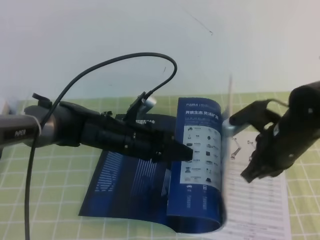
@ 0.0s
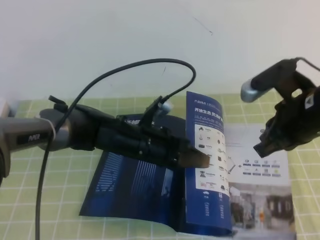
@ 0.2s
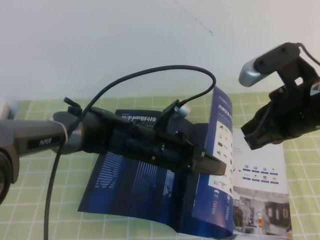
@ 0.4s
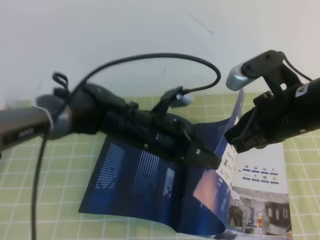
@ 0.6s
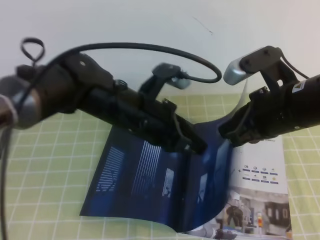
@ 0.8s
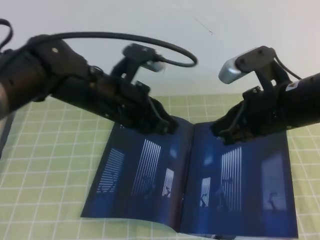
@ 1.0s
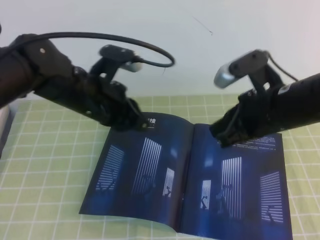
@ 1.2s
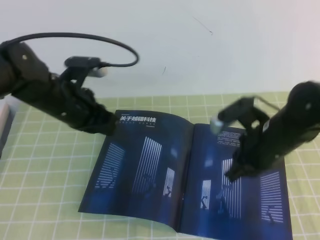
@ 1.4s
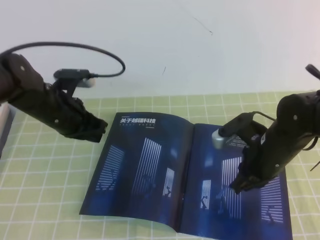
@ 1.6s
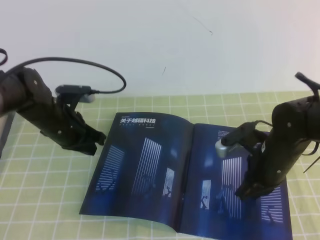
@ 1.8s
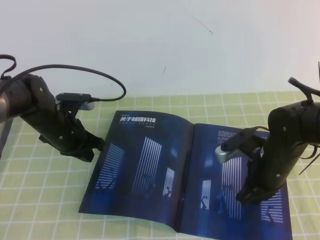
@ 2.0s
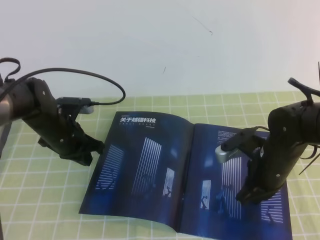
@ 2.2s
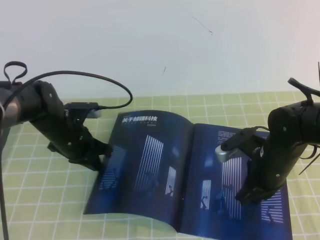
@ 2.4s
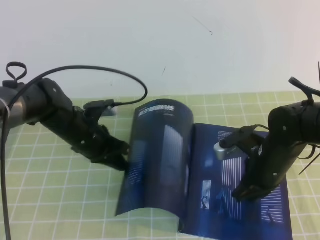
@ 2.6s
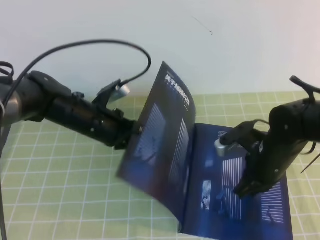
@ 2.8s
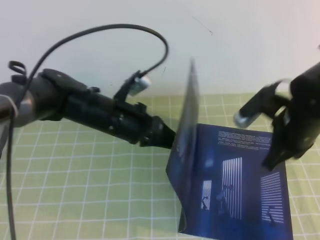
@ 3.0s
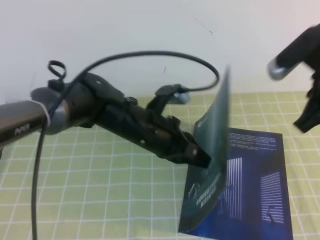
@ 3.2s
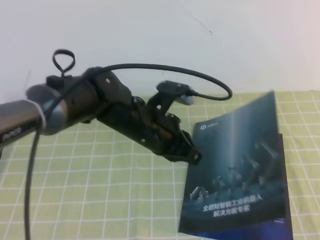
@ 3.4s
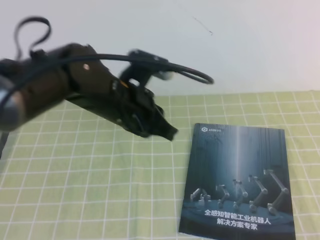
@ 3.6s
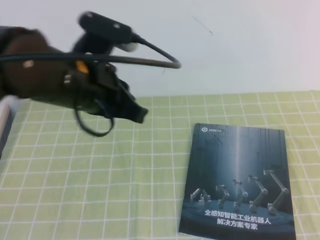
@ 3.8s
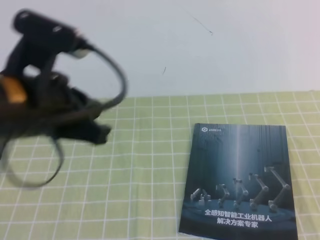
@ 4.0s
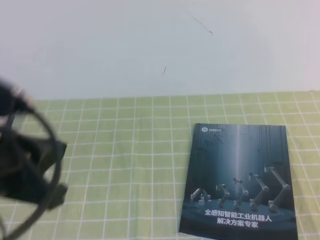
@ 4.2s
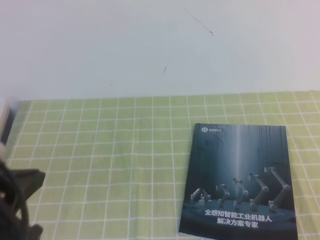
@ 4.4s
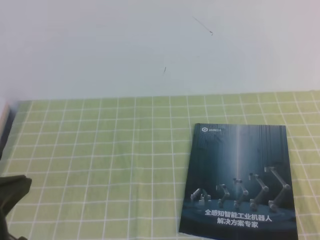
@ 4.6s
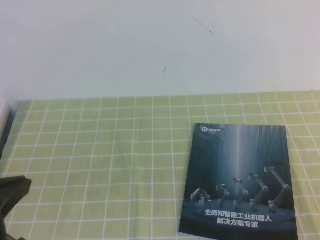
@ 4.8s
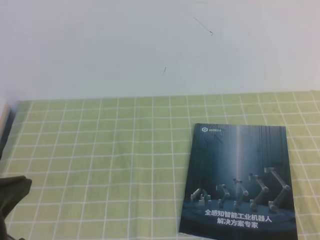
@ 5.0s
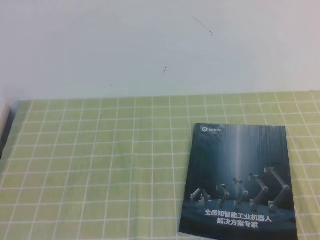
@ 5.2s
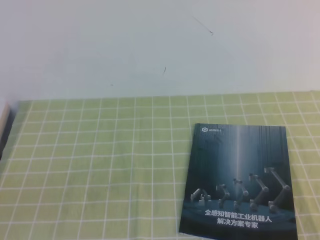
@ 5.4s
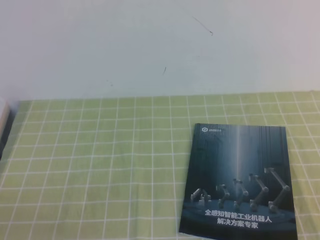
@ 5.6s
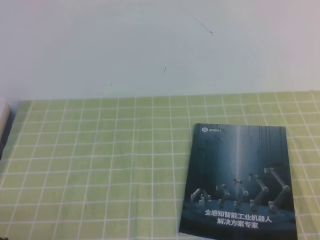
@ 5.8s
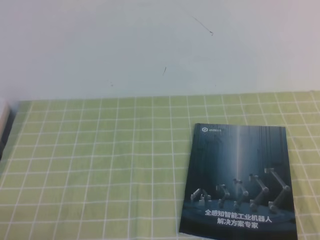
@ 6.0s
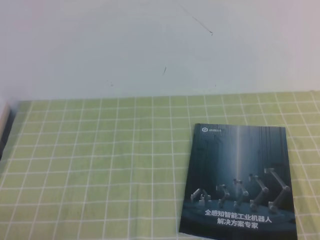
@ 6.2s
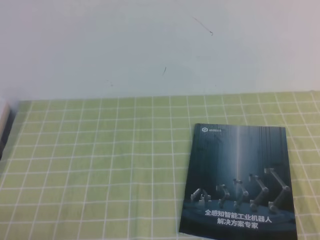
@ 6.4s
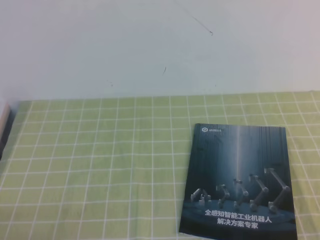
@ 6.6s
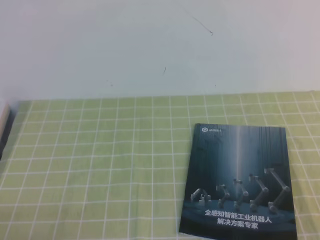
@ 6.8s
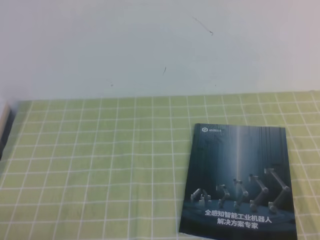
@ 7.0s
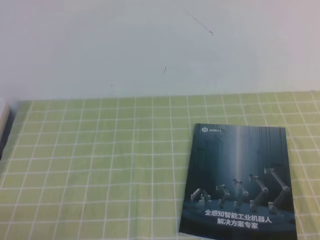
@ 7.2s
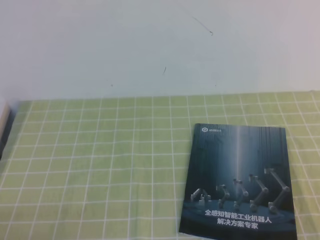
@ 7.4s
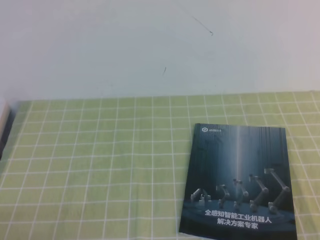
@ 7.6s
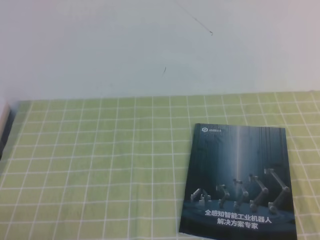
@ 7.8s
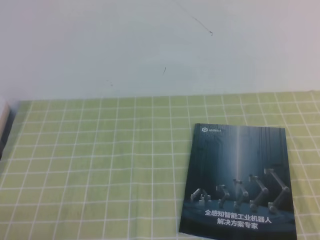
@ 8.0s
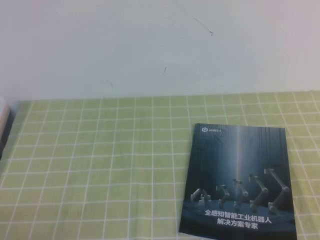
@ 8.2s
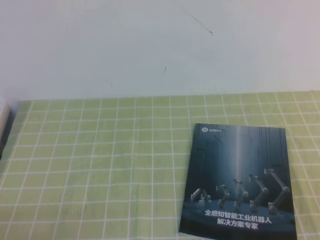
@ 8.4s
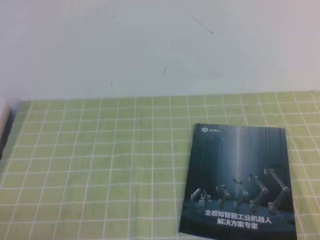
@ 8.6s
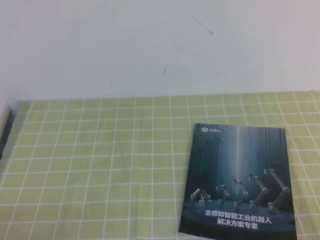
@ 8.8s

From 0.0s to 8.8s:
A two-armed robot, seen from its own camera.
Task of the whole recording: on the green tablecloth, hold the book with one hand and close it with the other.
Step, from 0.0s to 8.8s: Close the open book.
From 0.0s to 1.4s: The left gripper travels upward and to the left by approximately 15 cm; the right gripper travels upward and back again, some 10 cm each way.
From 1.4s to 3.0s: The right gripper moves approximately 10 cm downward and comes back, while the left gripper shifts some 5 cm to the right.
From 3.0s to 4.4s: The left gripper travels backward, upward and to the left by some 30 cm. The right gripper is displaced backward and to the right by about 30 cm.
From 4.4s to 5.8s: The left gripper heads downward, backward and to the left, covering some 15 cm.

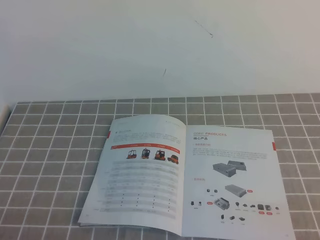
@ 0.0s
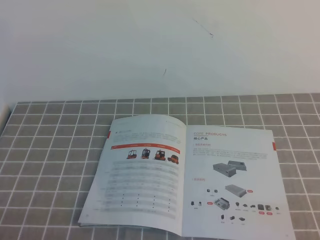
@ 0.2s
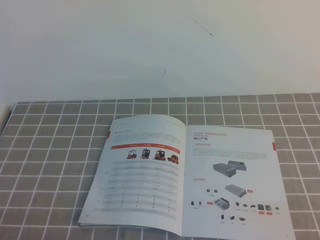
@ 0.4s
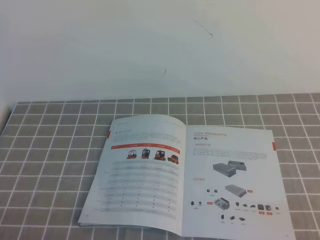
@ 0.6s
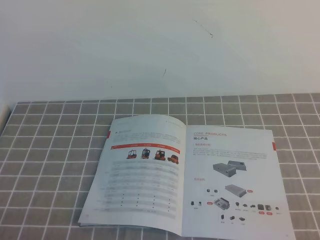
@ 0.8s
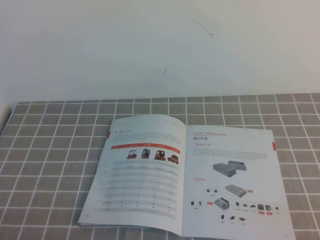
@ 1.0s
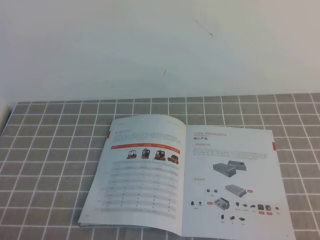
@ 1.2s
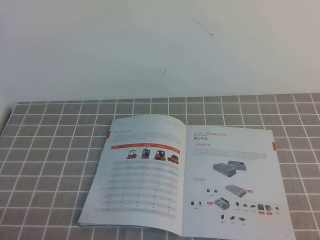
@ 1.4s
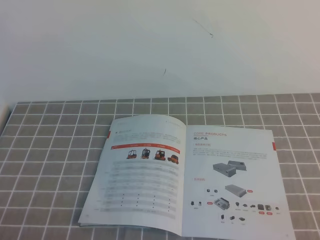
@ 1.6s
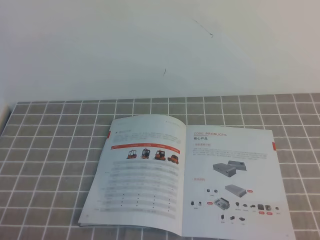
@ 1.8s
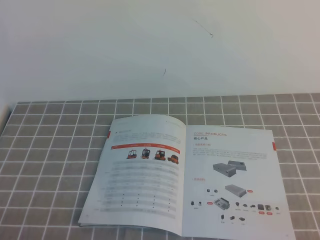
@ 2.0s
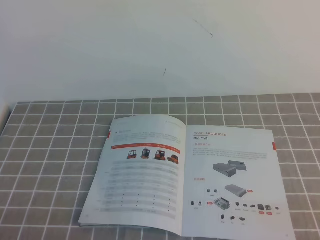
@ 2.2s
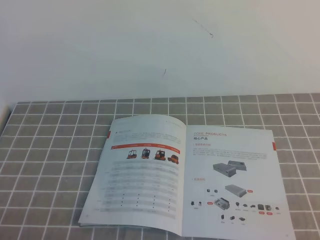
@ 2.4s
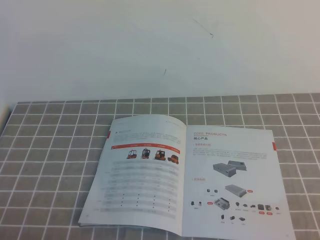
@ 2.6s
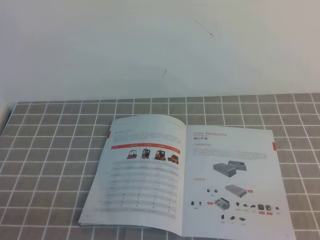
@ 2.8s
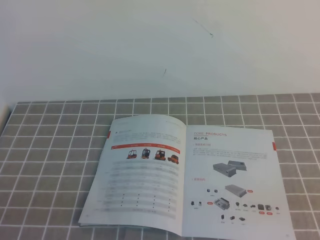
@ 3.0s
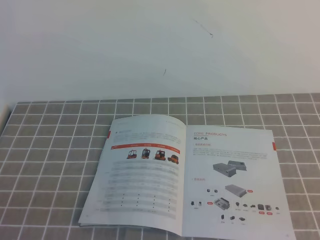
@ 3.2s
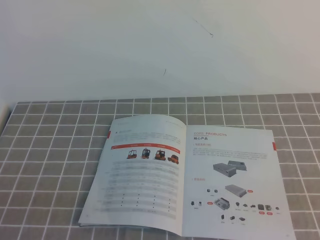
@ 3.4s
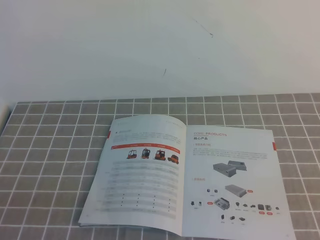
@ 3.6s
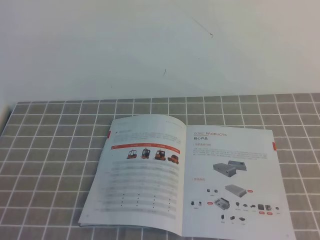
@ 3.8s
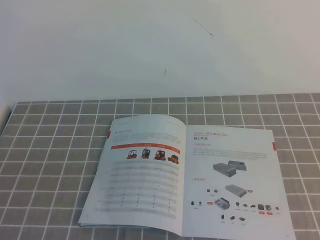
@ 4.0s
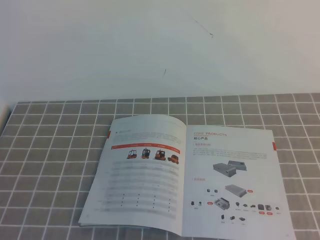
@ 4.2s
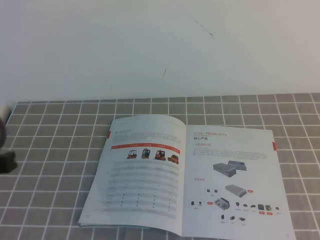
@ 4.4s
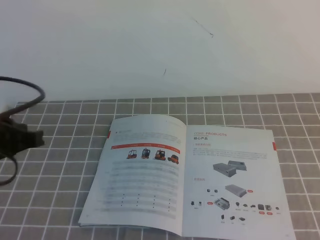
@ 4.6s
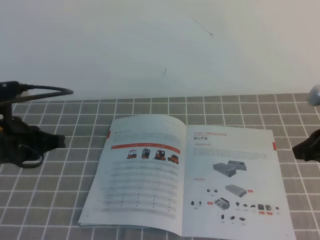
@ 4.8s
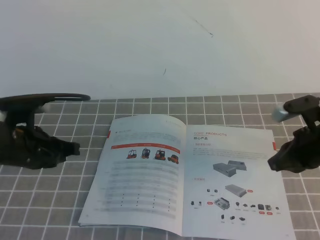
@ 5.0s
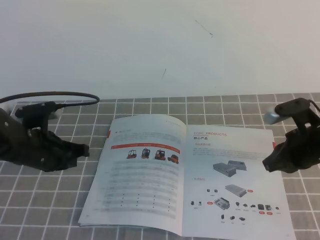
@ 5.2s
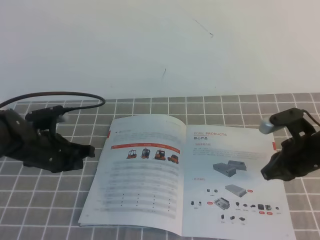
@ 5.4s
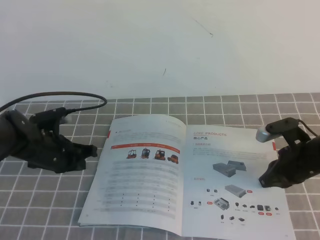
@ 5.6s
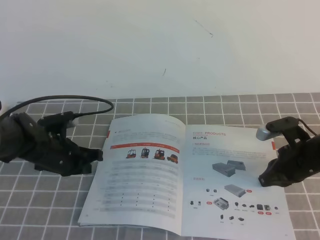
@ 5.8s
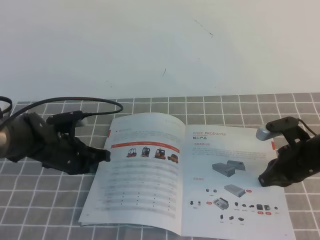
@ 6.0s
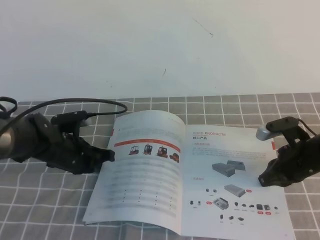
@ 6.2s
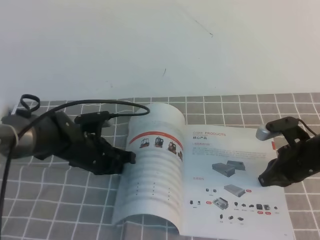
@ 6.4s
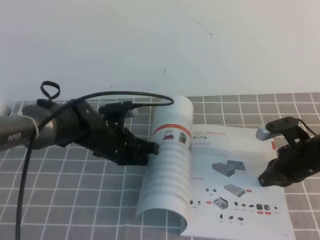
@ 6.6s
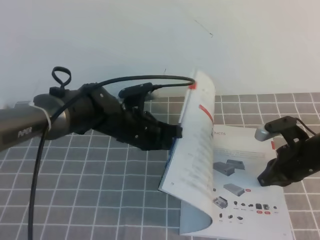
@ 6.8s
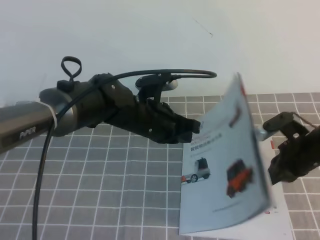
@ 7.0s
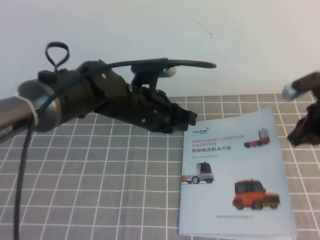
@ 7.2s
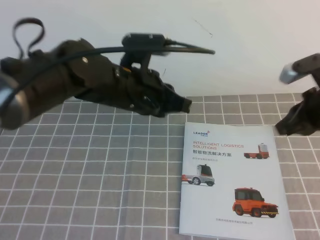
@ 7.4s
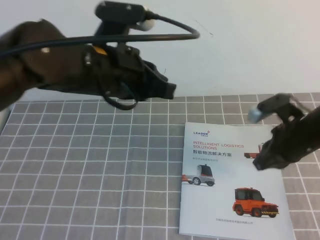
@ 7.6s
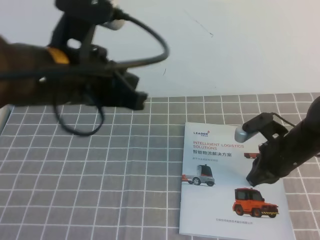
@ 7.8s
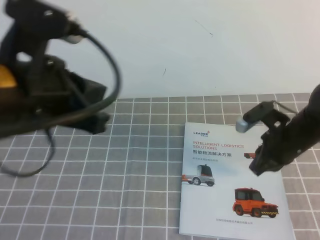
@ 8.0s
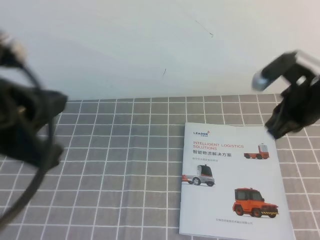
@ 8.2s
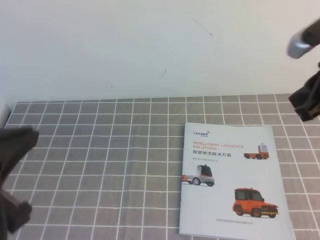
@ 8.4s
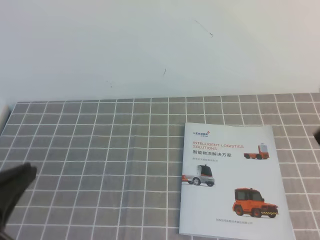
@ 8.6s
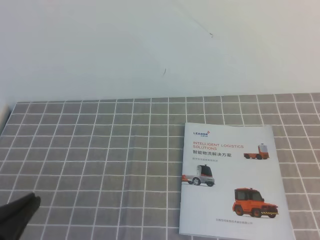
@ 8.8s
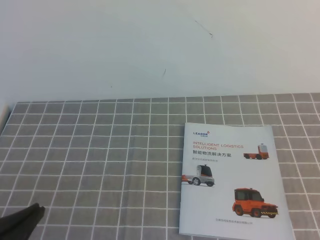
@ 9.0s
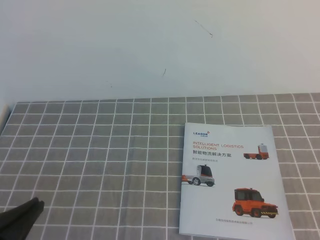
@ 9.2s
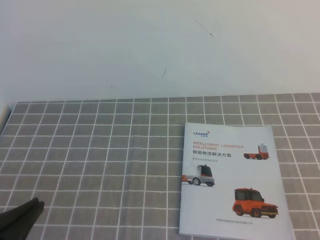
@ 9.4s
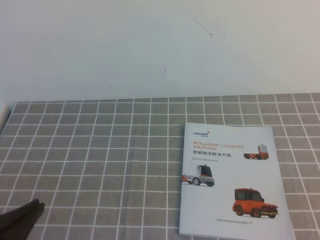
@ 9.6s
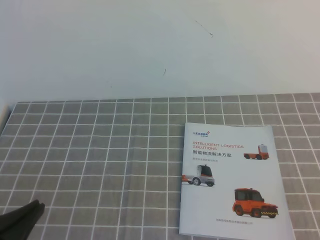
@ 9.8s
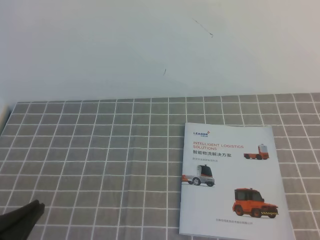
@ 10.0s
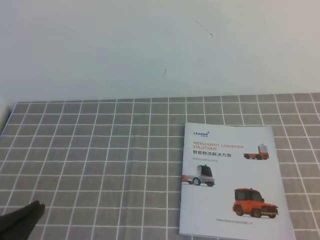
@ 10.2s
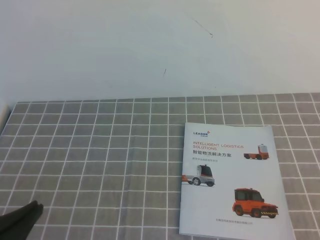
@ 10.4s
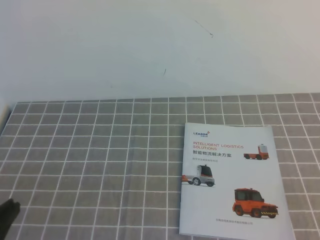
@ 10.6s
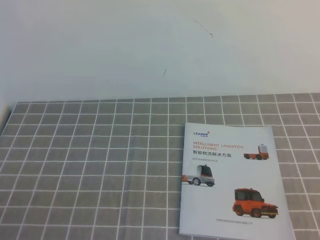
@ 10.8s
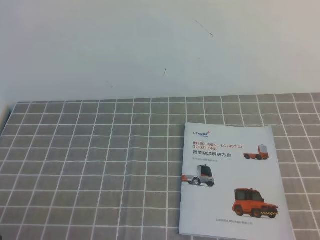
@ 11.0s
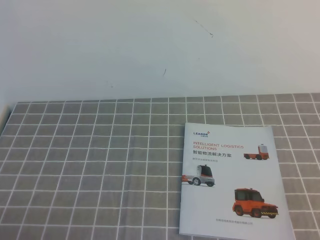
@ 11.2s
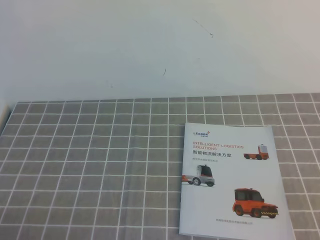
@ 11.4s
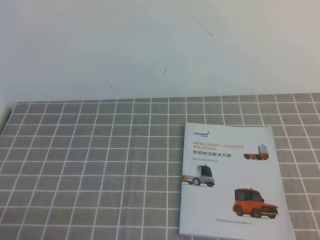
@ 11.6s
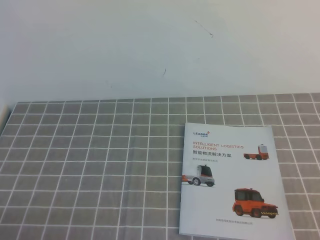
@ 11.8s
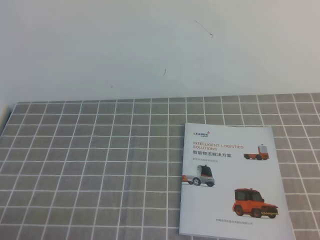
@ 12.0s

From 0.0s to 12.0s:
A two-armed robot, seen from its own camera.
Task of the whole recording: on the grey tablecloth, hold the book with one hand and close it with the other.
From 0.0s to 1.6s: The two grippers keep their place.
From 3.0s to 4.4s: The left gripper is displaced upward and forward by roughly 15 cm.
From 4.4s to 6.0s: The right gripper heads downward and forward, covering some 30 cm. Meanwhile the left gripper is displaced forward and downward by some 30 cm.
From 6.0s to 7.6s: The right gripper goes roughly 5 cm upward. Meanwhile the left gripper moves upward and to the right, approximately 25 cm.
From 7.6s to 9.0s: The right gripper is displaced backward and upward by roughly 25 cm, while the left gripper heads backward, to the left and downward, covering some 25 cm.
From 10.4s to 12.0s: The left gripper moves downward, some 10 cm.

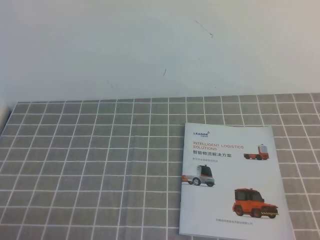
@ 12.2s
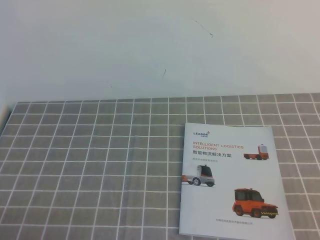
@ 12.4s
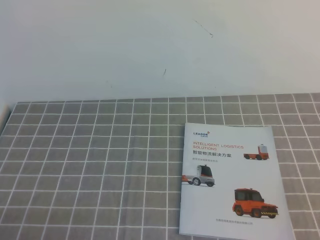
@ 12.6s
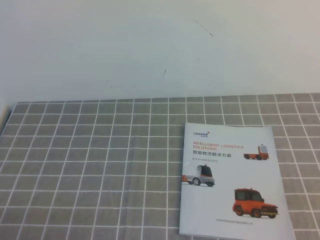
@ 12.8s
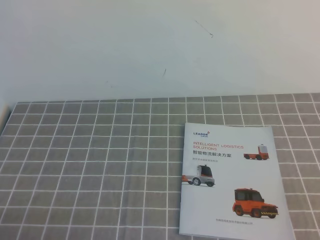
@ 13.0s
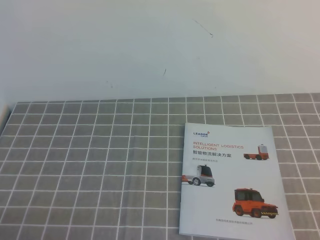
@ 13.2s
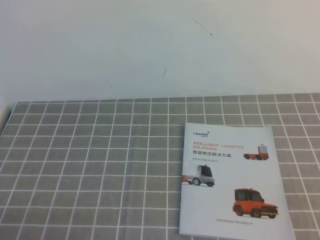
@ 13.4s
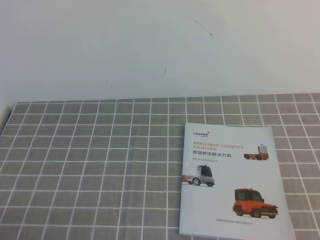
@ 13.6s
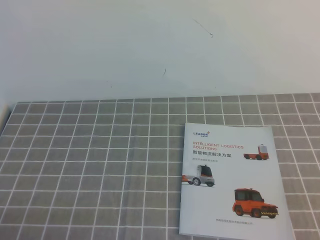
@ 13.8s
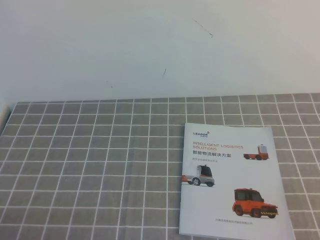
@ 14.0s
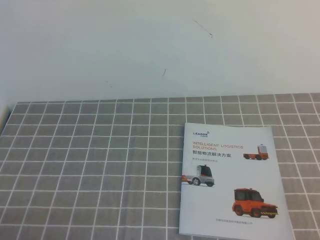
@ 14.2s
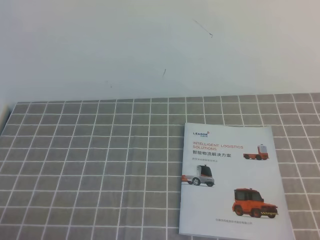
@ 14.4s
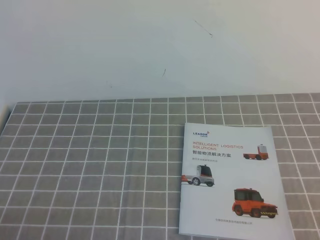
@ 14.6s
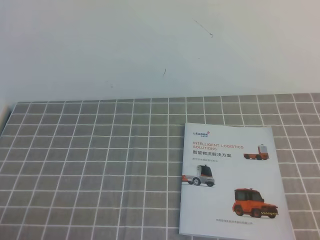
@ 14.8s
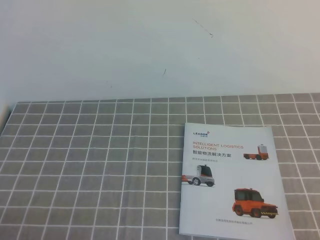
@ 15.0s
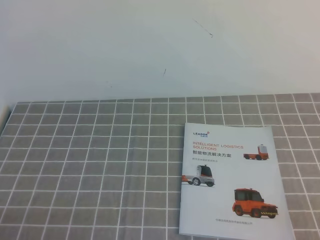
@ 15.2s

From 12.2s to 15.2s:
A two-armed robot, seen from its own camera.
Task of the whole recording: on the grey tablecloth, hold the book with one hand and close it with the other.
From 12.2s to 13.8s: Neither gripper changes place.
